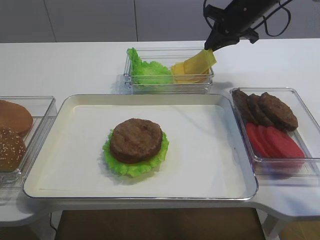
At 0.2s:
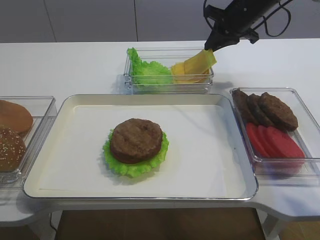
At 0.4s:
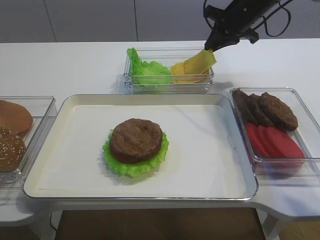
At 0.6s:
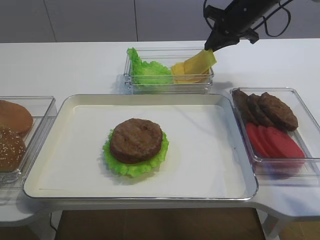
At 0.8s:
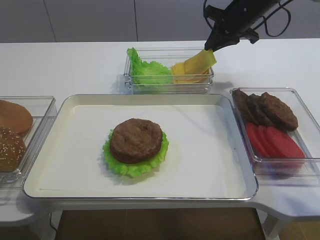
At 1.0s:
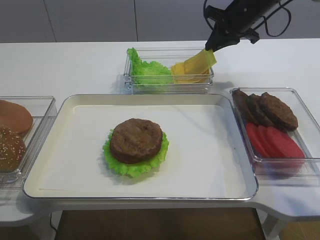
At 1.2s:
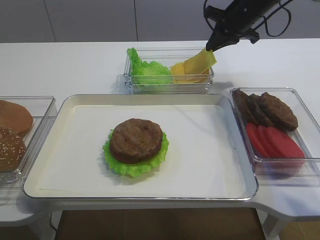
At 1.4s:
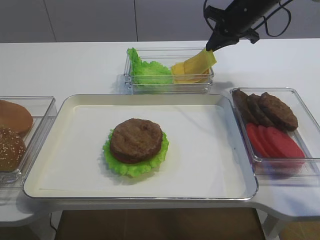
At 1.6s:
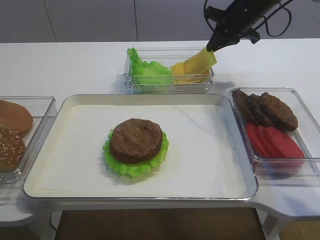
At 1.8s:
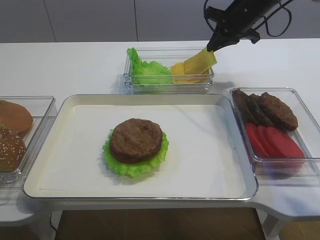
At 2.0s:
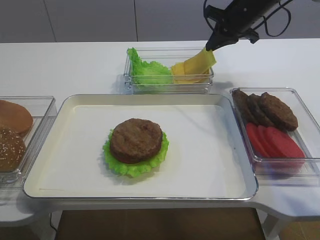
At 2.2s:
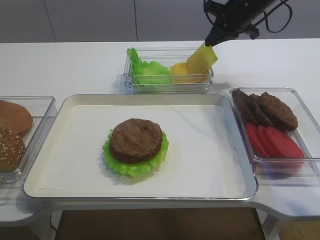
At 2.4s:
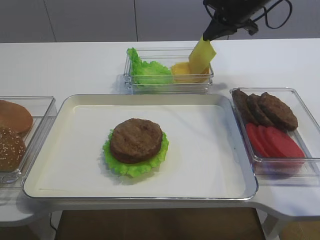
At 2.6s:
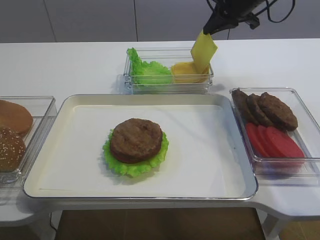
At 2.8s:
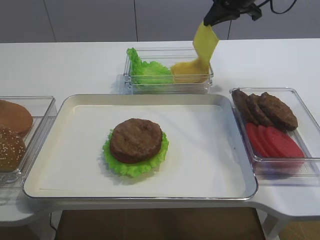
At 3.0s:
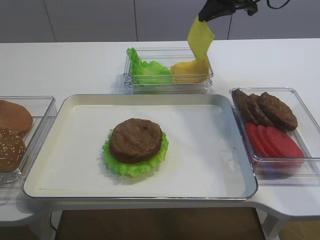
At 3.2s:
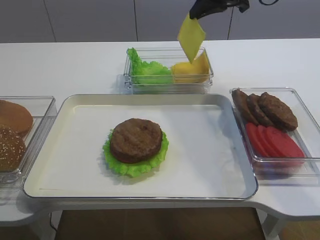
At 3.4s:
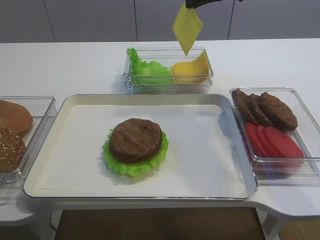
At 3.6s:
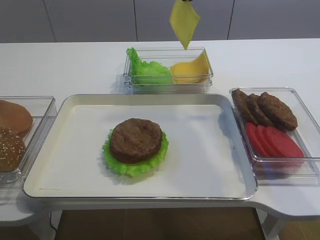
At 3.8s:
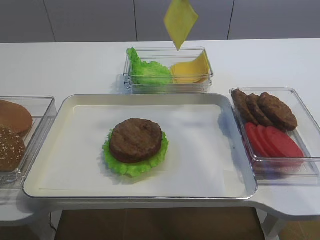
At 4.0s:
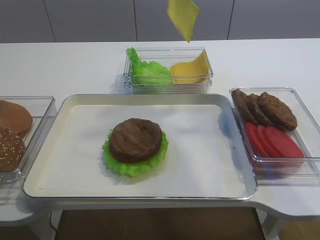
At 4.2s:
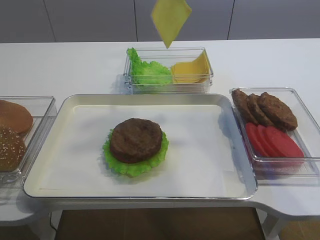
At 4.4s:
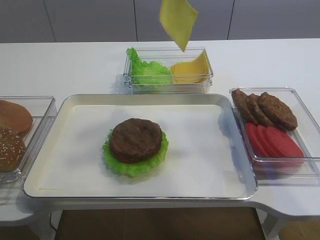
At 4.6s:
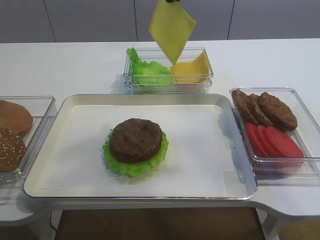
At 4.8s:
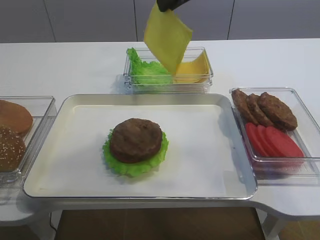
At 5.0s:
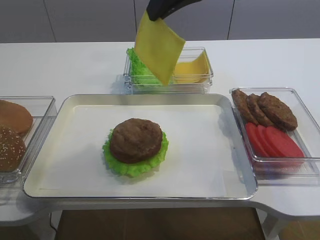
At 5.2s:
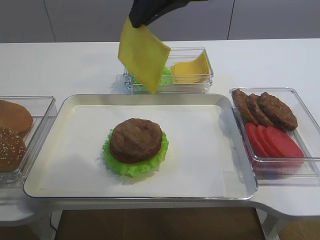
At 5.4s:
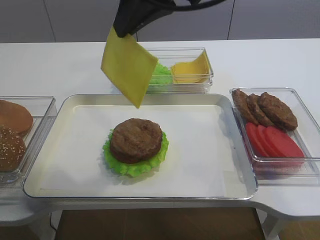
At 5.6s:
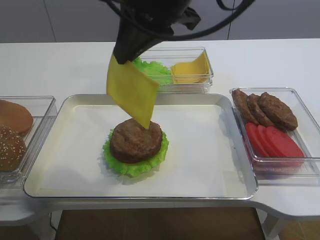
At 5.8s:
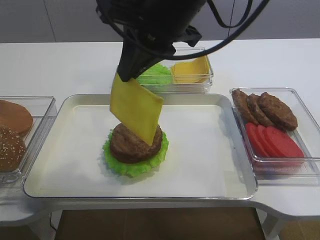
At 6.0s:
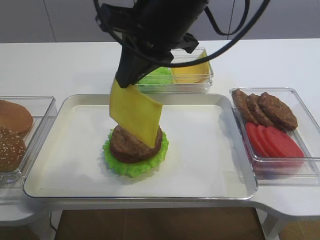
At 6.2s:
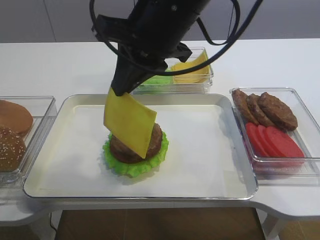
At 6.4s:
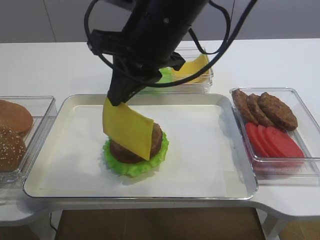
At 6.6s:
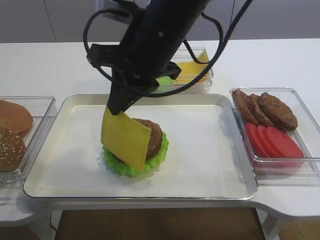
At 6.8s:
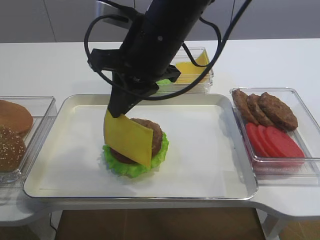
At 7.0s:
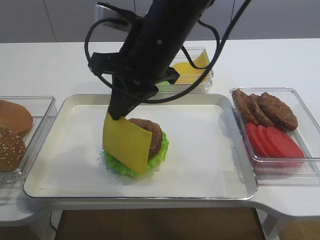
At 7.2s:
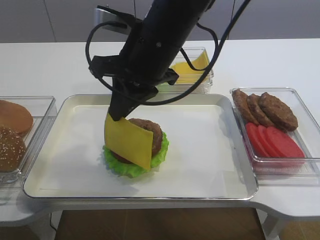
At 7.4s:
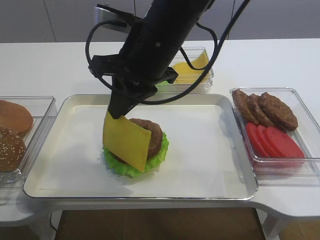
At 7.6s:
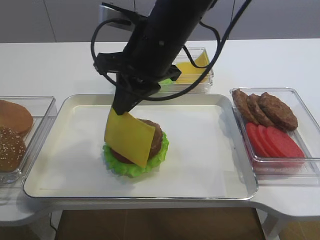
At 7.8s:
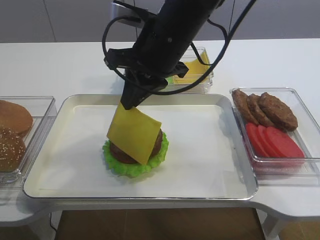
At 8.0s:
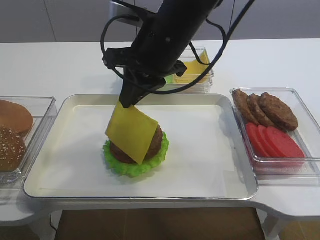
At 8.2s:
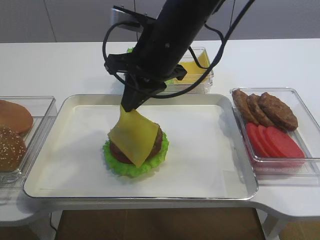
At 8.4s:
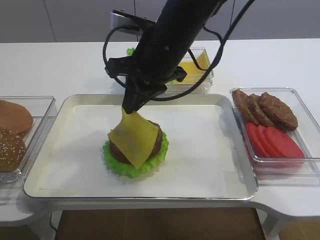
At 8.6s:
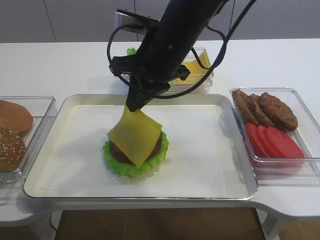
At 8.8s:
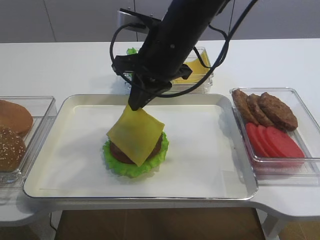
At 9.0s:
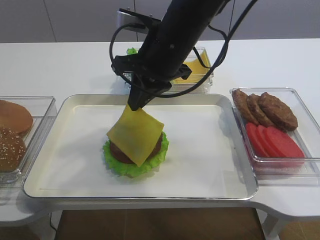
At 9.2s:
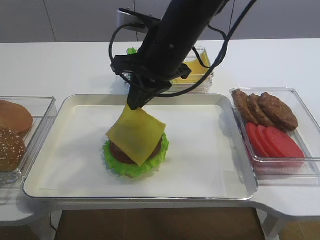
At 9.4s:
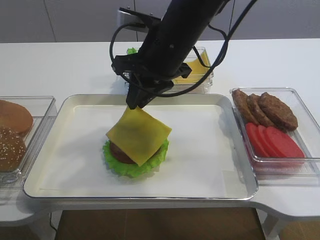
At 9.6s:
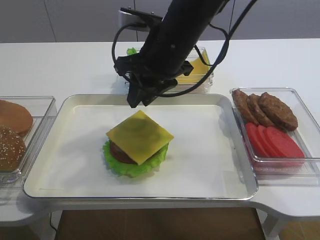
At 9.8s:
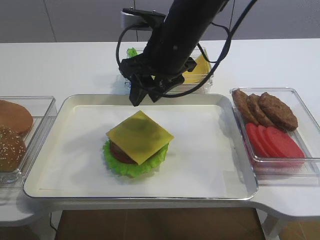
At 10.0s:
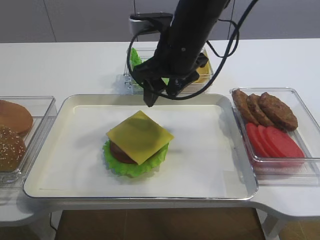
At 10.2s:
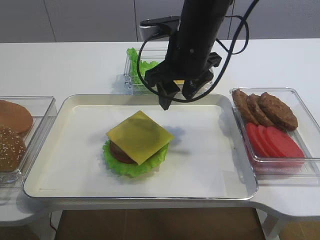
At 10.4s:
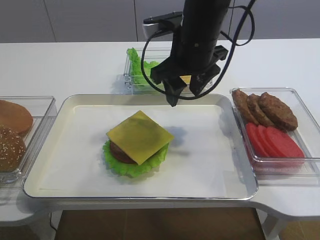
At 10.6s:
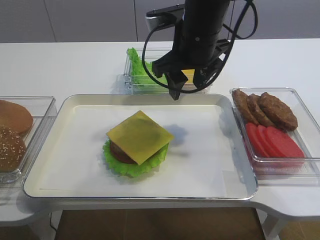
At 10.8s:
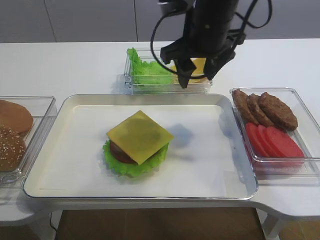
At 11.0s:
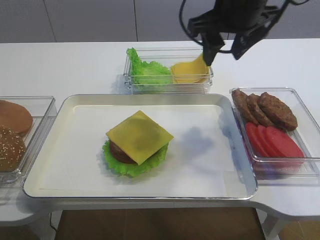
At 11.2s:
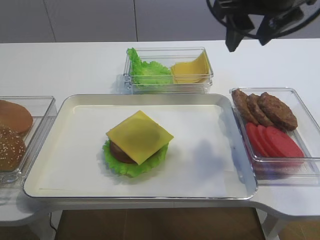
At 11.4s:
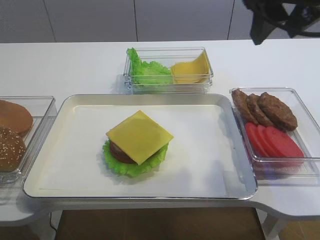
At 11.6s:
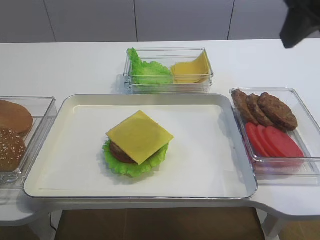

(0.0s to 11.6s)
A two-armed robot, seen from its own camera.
Step, 0.0s - 2.4s: Pick up the cheese slice with the right gripper.
Step, 2.6s - 9.6s: Place the cheese slice on the cutlet with the right gripper.
0.0s - 1.4s: Both grippers stay about where they are.
1.4s - 2.8s: The right gripper moves upward, about 5 cm.
2.8s - 4.4s: The right gripper travels backward, upward and to the left by roughly 15 cm.
4.4s - 5.8s: The right gripper shifts some 15 cm backward and to the left.
5.8s - 7.2s: The right gripper travels downward by approximately 5 cm.
7.2s - 8.8s: The grippers stay close to where they were, moving slightly.
8.8s - 10.2s: The right gripper opens its fingers.
10.2s - 11.6s: The right gripper moves to the right, upward and backward, roughly 25 cm.

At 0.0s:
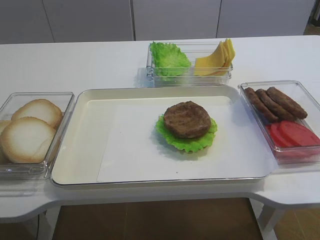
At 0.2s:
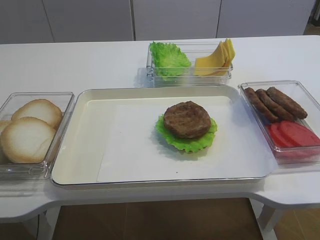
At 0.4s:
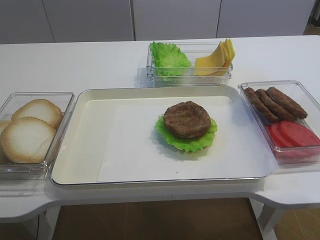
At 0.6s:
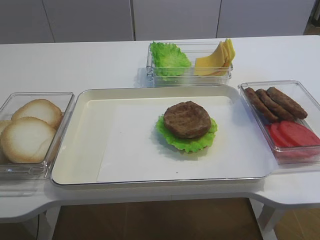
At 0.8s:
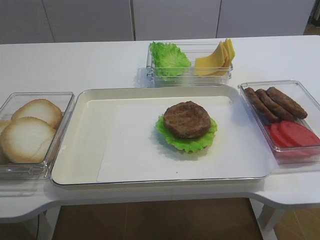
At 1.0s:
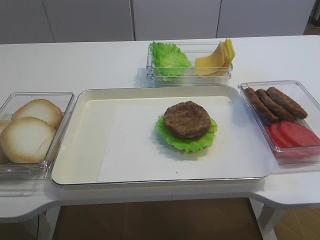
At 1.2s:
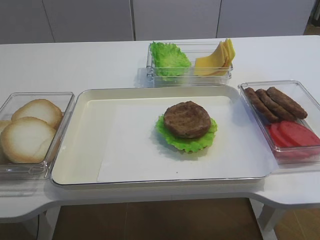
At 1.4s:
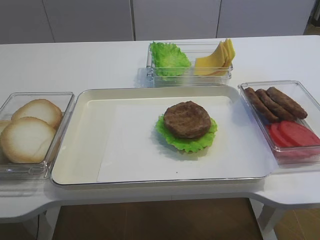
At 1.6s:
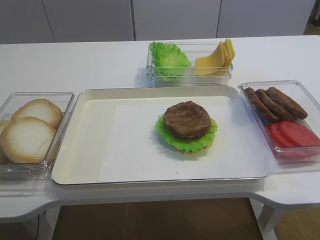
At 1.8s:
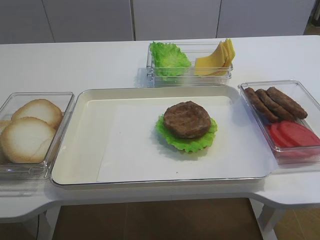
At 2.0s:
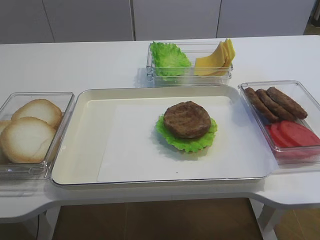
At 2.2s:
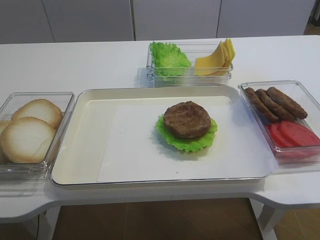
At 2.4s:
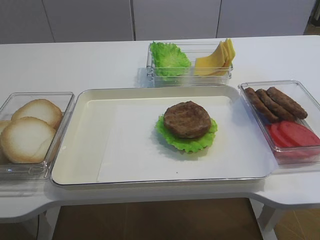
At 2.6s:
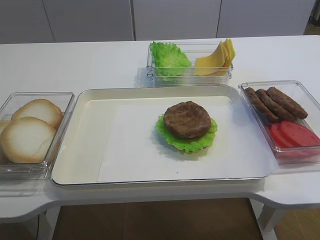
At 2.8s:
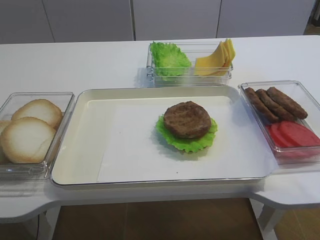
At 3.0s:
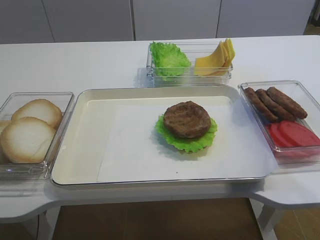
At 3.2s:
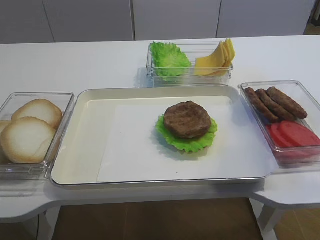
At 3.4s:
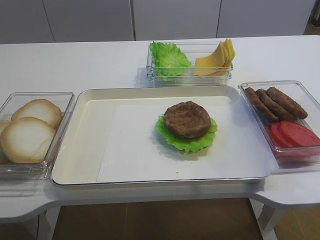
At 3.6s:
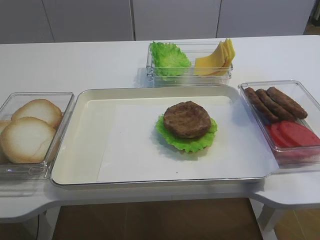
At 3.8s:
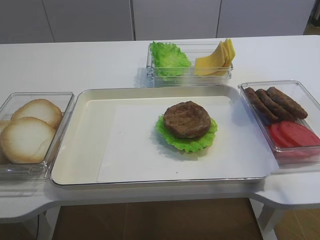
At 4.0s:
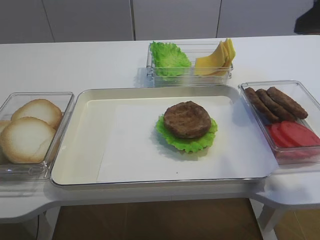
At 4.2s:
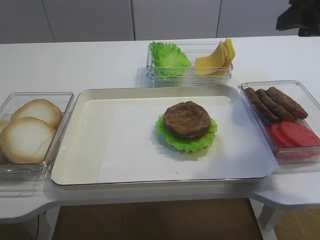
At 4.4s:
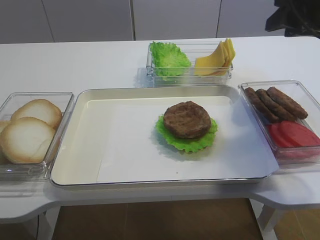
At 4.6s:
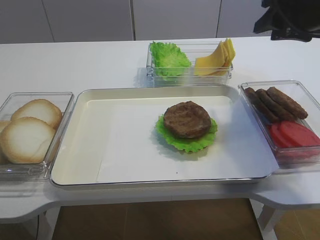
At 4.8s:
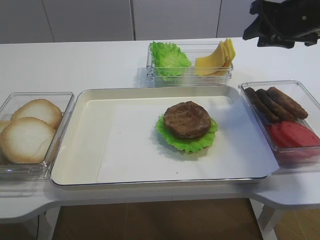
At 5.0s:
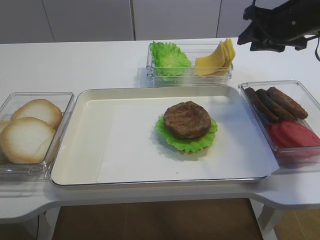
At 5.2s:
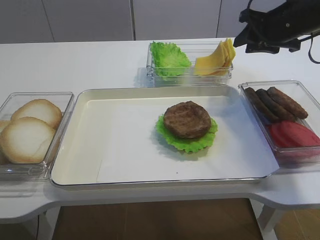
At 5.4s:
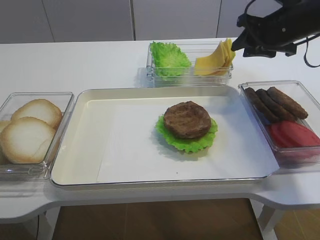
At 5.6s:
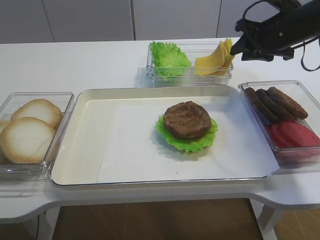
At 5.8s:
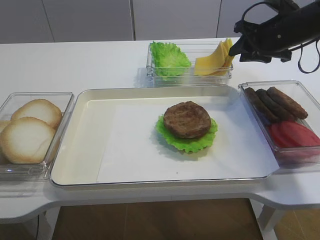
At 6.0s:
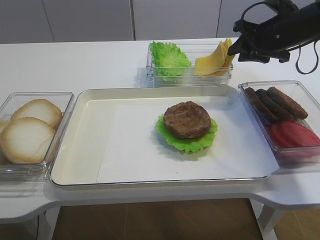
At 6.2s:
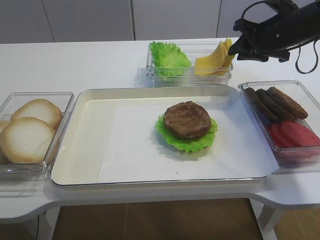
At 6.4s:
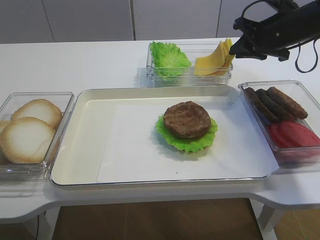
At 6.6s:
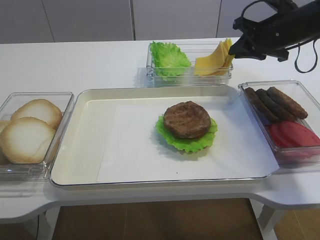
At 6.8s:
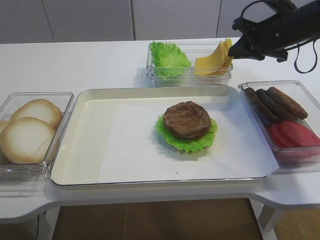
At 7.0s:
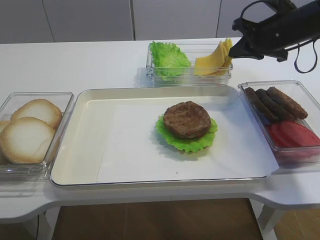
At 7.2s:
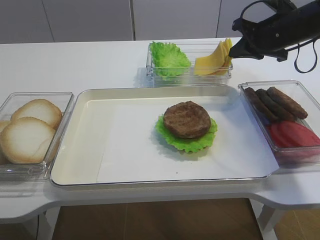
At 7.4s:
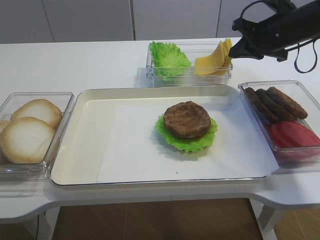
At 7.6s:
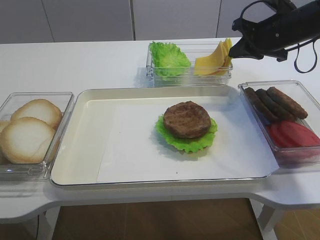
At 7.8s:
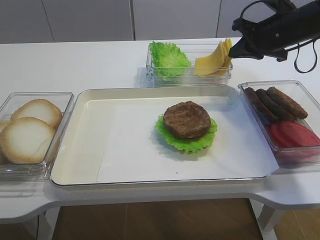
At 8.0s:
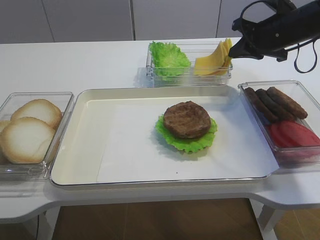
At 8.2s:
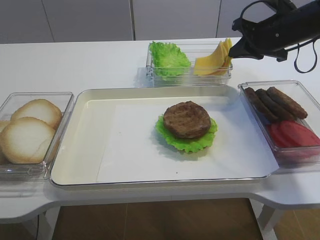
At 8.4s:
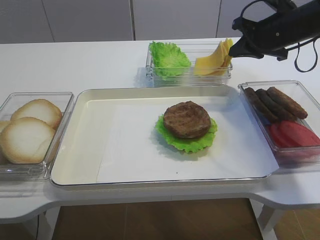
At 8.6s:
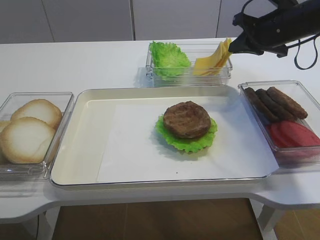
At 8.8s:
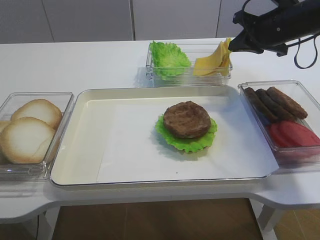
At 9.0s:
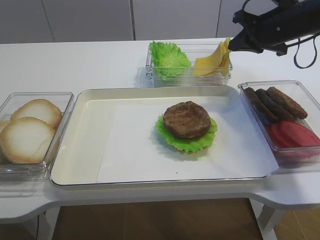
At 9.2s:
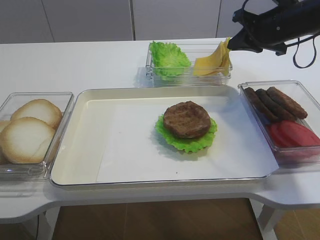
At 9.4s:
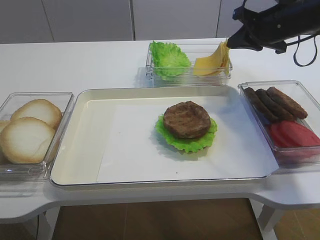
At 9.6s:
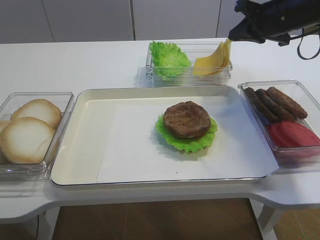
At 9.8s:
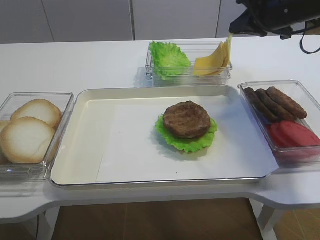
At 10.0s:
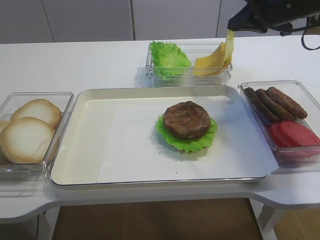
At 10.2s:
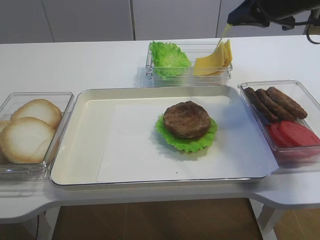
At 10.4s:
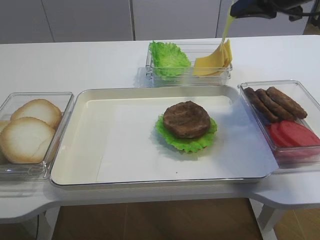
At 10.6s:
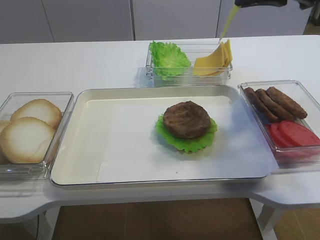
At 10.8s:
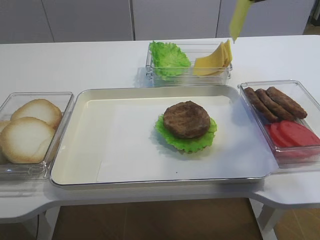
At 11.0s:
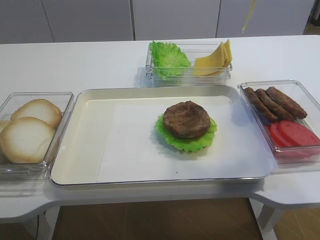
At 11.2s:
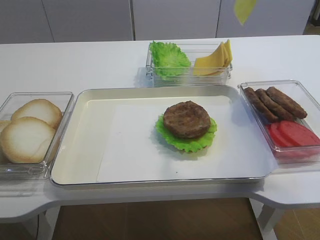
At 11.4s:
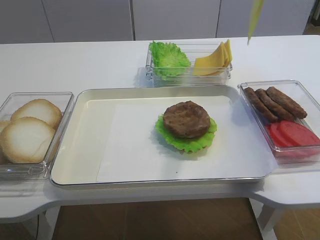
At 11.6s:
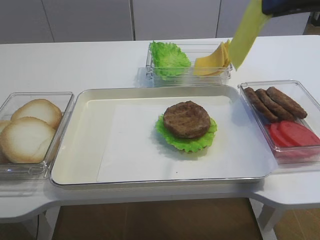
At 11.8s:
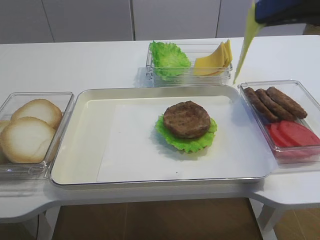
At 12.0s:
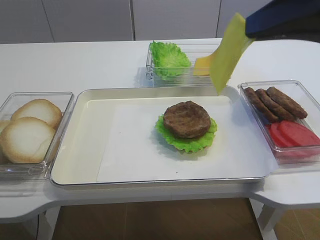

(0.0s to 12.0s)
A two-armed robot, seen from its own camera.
Step, 0.0s - 11.2s: Pick up the cheese slice with the right gripper.
3.0s - 4.4s: The right gripper goes roughly 30 cm forward, and closes up.
4.4s - 6.0s: The right gripper goes some 15 cm forward and downward.
6.0s - 7.6s: The right gripper closes.
7.6s - 9.0s: The two grippers keep their place.
9.0s - 10.4s: The right gripper is displaced upward and backward by approximately 10 cm.
10.4s - 12.0s: The right gripper heads backward, covering about 20 cm.
